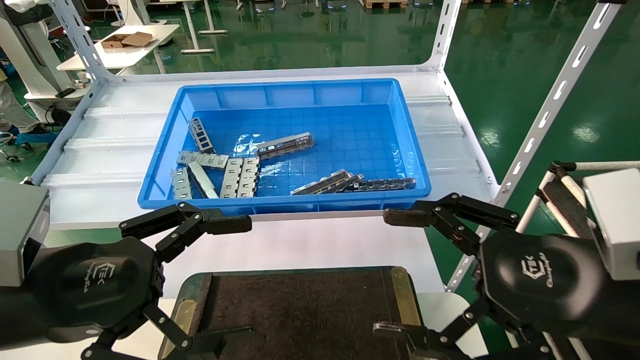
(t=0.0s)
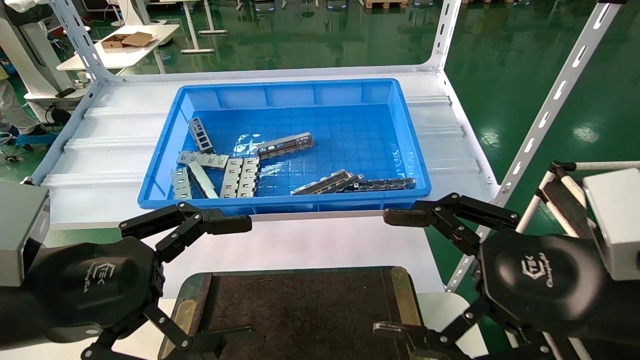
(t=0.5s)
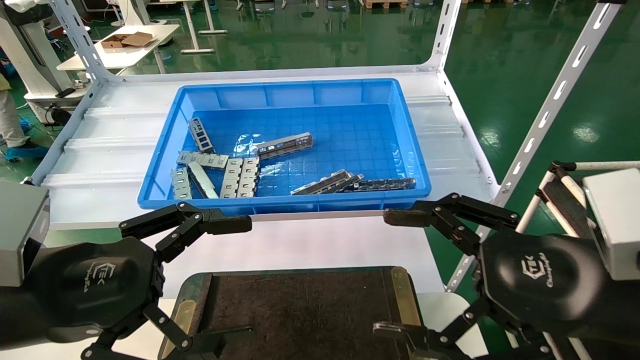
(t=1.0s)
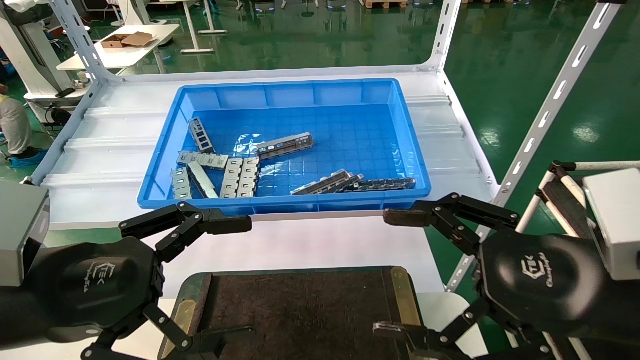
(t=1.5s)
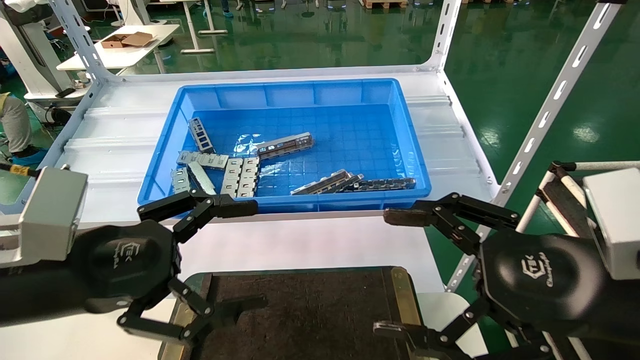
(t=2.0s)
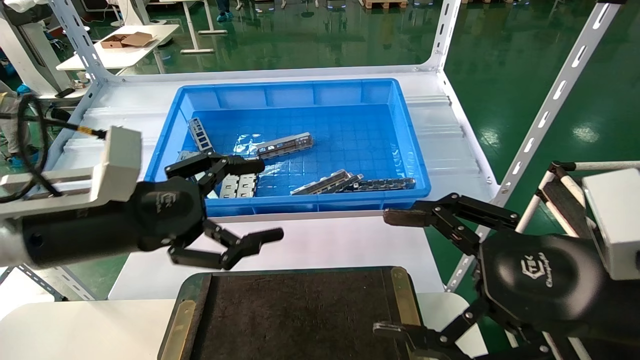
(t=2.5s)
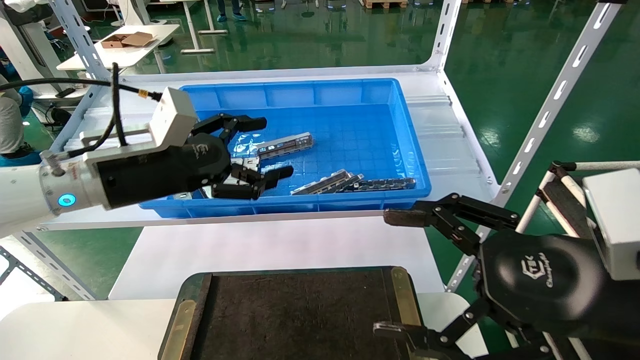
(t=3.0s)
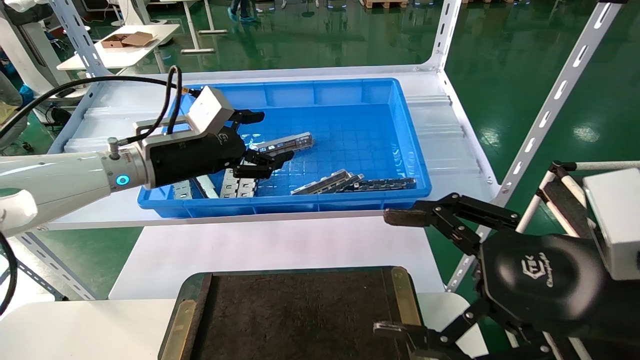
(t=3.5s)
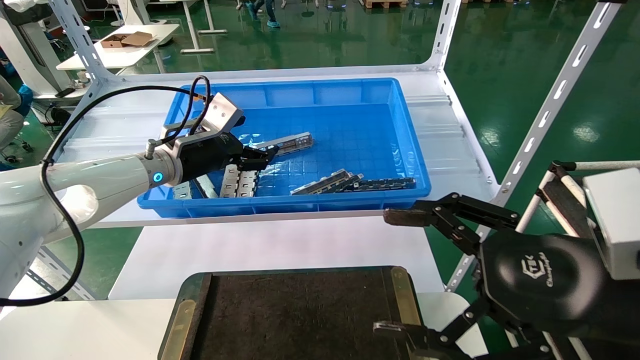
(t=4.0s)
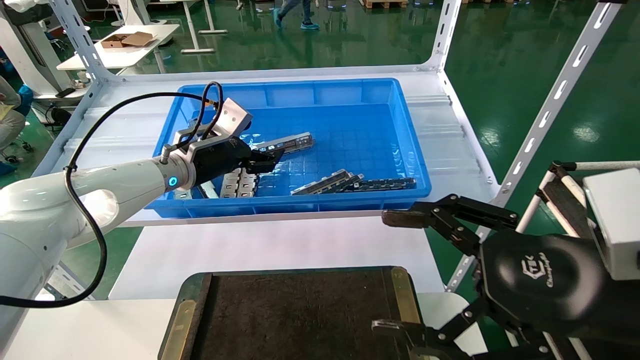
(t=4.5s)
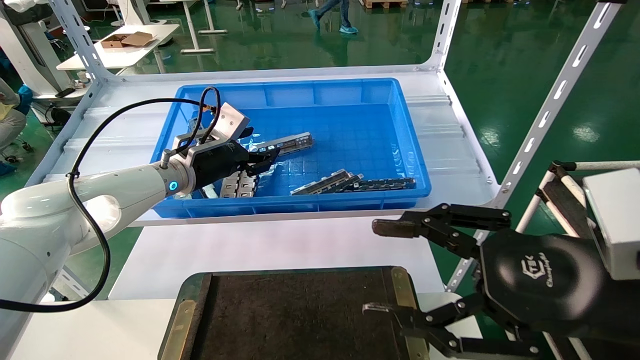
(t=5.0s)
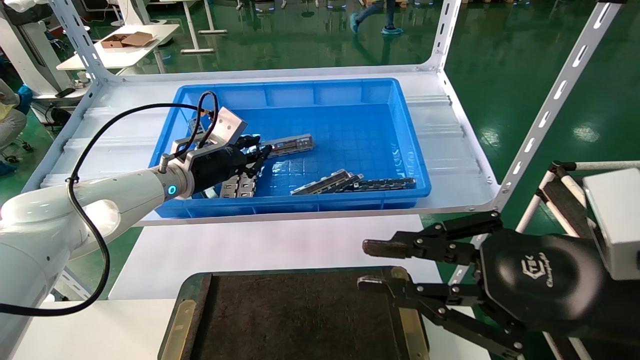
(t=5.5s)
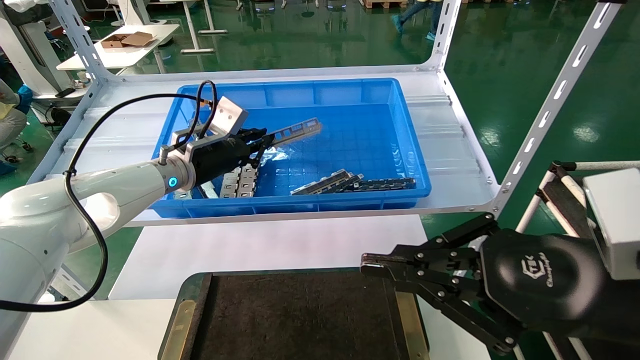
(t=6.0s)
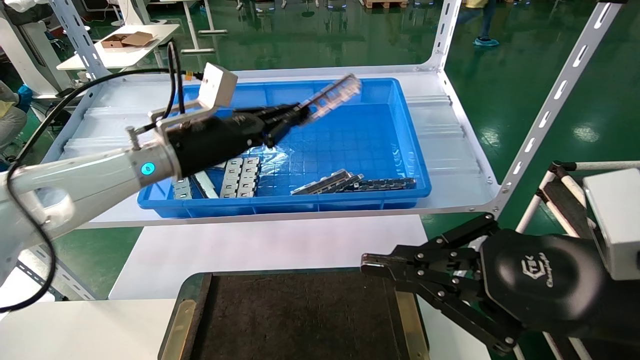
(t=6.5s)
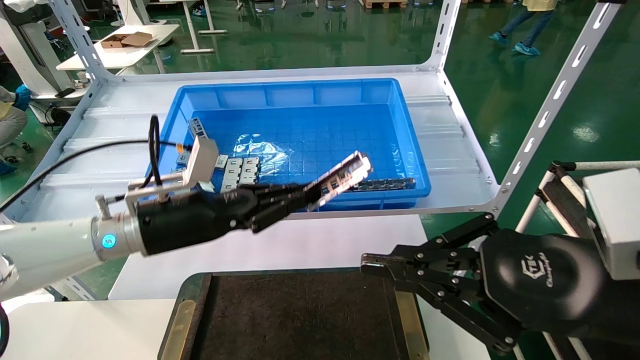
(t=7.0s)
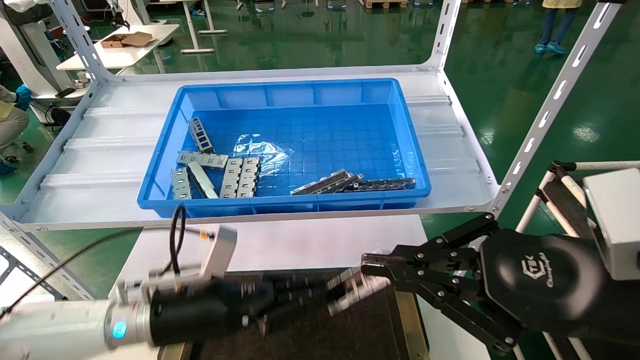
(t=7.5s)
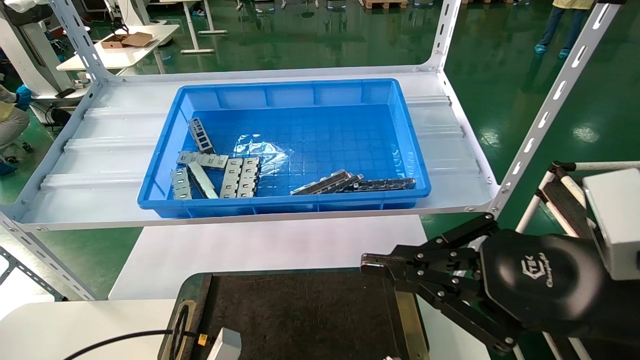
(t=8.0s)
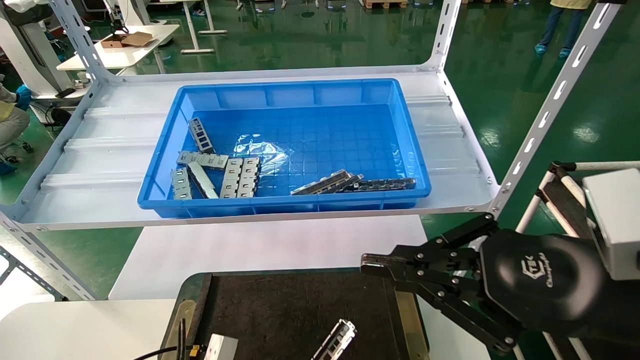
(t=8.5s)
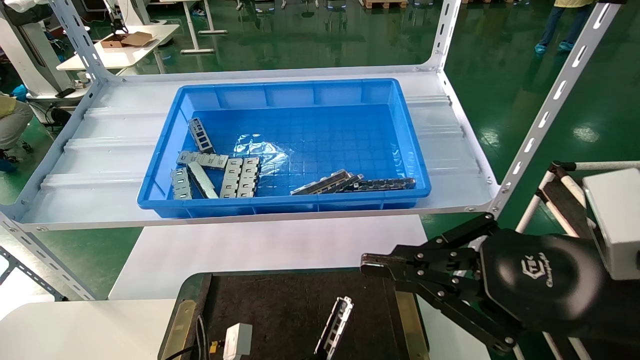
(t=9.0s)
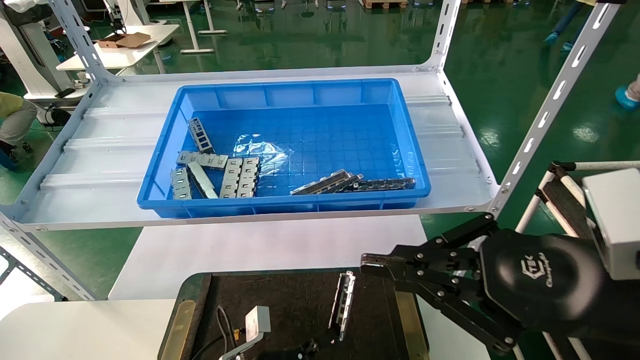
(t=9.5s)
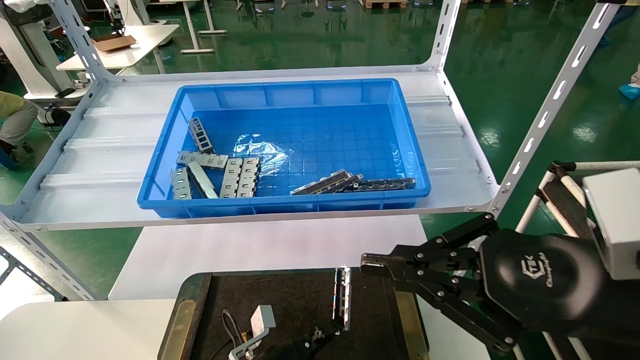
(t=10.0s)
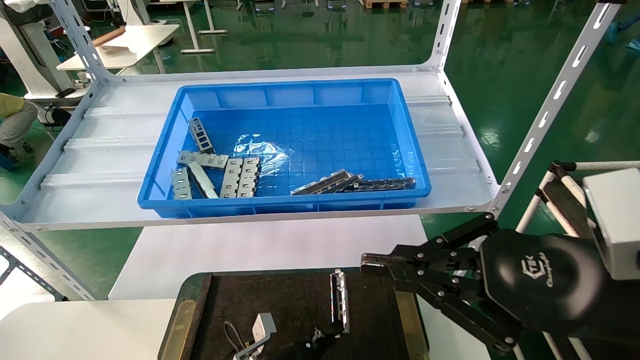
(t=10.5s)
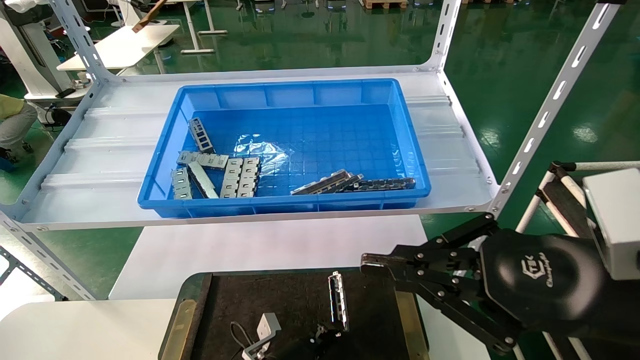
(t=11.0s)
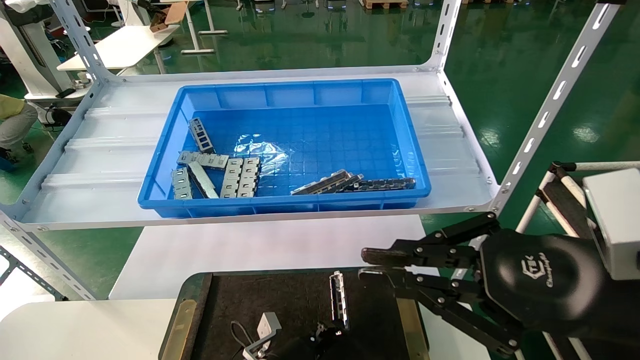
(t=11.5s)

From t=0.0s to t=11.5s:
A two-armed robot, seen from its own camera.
Task of the whole recording: Grasp the part with one hand and place it on the black container.
Step, from t=2.5s to t=7.0s: Pick up the front USB bracket from the feeding area.
From t=0.0s to t=2.0s: The grippers make only small movements.
From t=2.0s to t=4.0s: The left gripper goes some 25 cm forward.
From t=4.0s to t=6.0s: The left gripper closes, while the right gripper closes up.
From t=6.0s to t=7.5s: The left gripper travels backward and downward by roughly 25 cm.
From t=7.5s to t=9.5s: The left gripper travels downward and to the right by approximately 20 cm.
From t=9.5s to t=11.5s: The left gripper ends up some 5 cm from where it was.

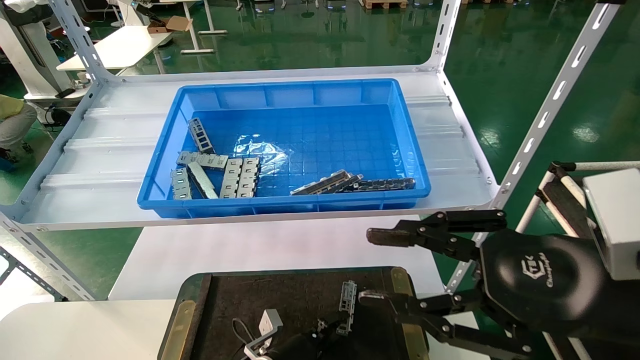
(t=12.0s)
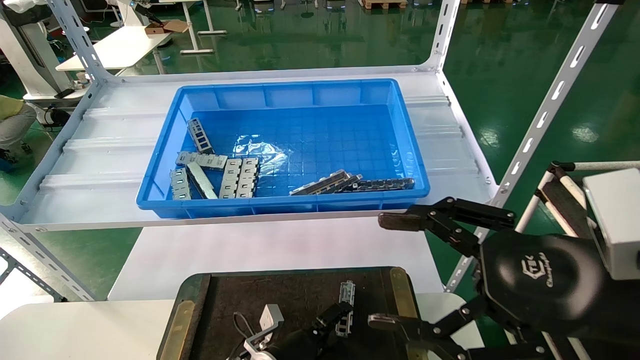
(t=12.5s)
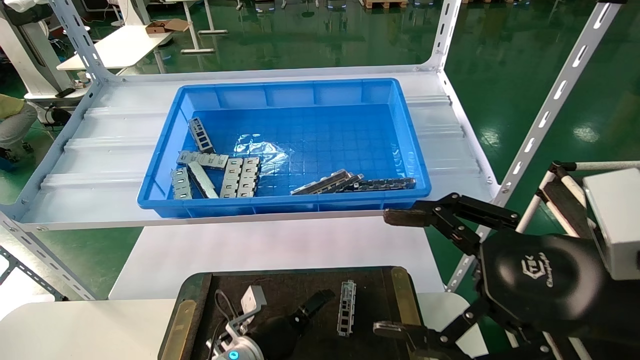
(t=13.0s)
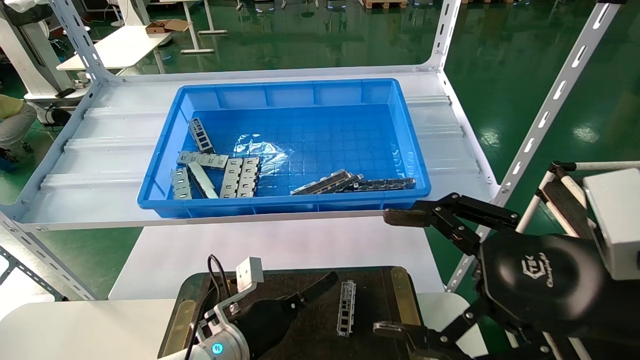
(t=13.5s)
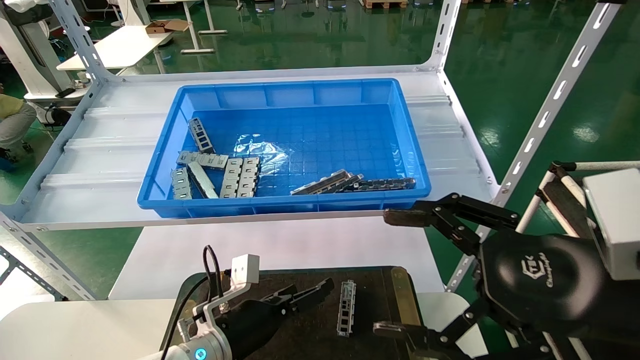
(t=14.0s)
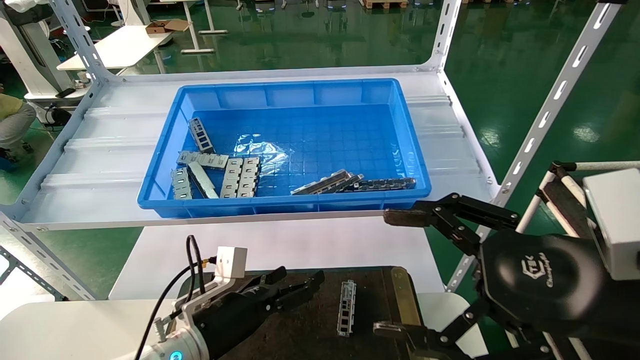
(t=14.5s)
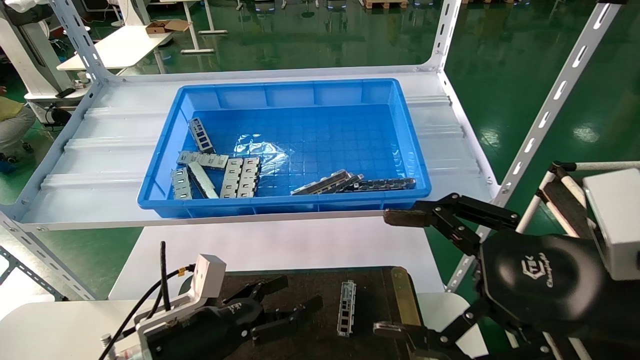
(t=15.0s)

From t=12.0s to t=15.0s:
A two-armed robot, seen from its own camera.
Task of the whole recording: Grasp the part with one hand and place it on the black container.
From t=12.0s to t=13.5s: The right gripper opens, while the left gripper travels upward by some 10 cm, and opens its fingers.
From t=13.5s to t=15.0s: The left gripper shifts approximately 10 cm to the left and backward.

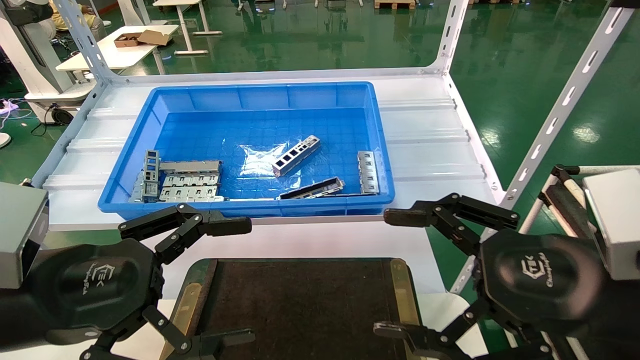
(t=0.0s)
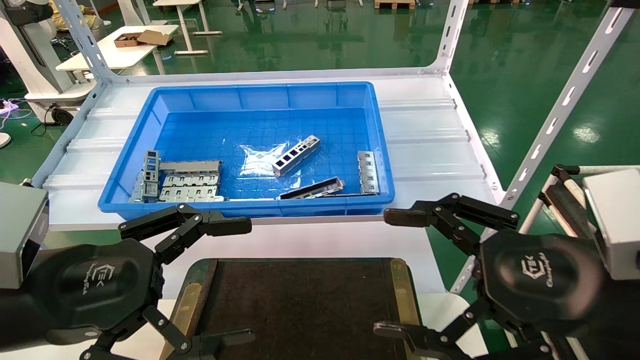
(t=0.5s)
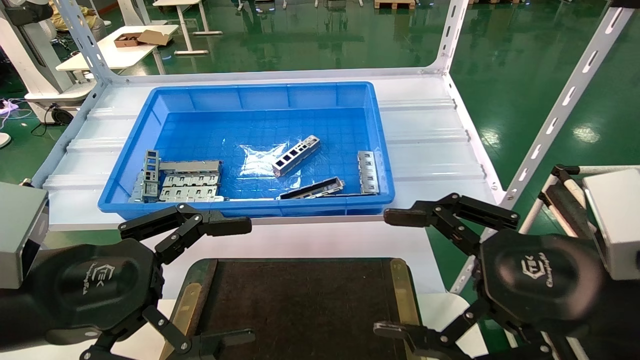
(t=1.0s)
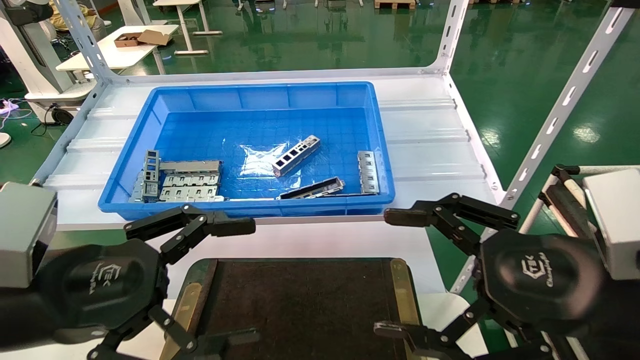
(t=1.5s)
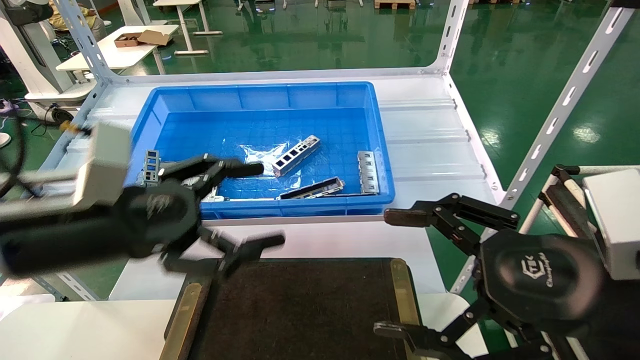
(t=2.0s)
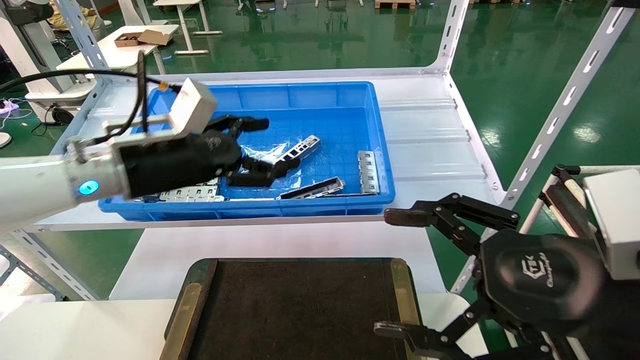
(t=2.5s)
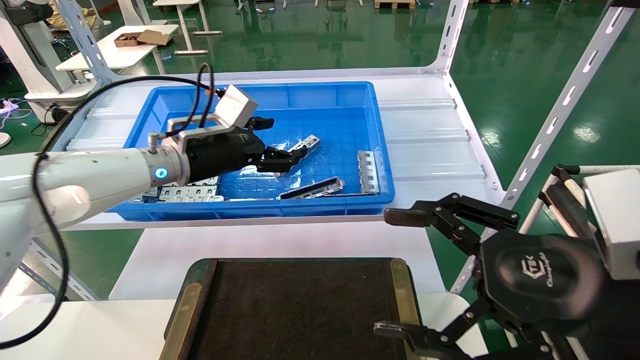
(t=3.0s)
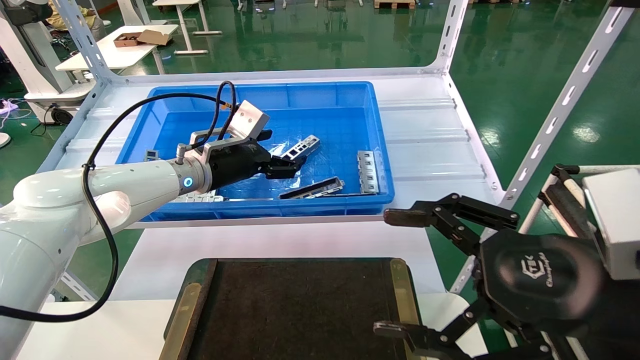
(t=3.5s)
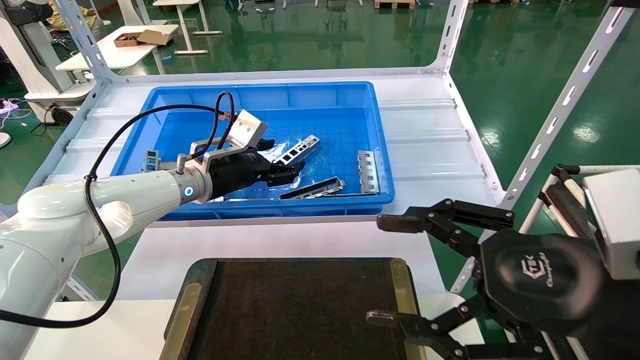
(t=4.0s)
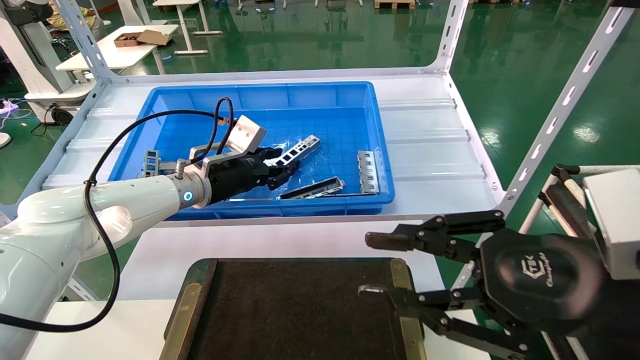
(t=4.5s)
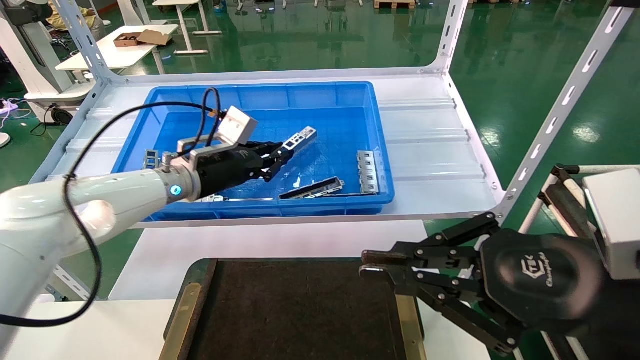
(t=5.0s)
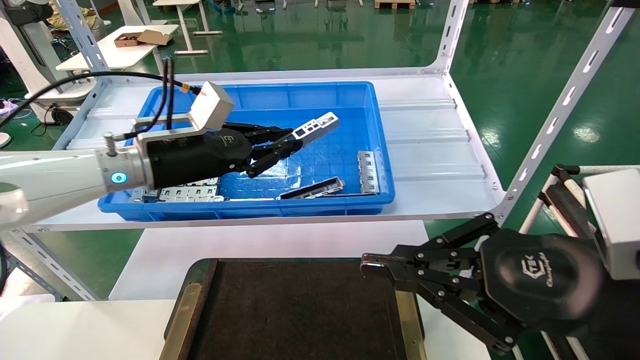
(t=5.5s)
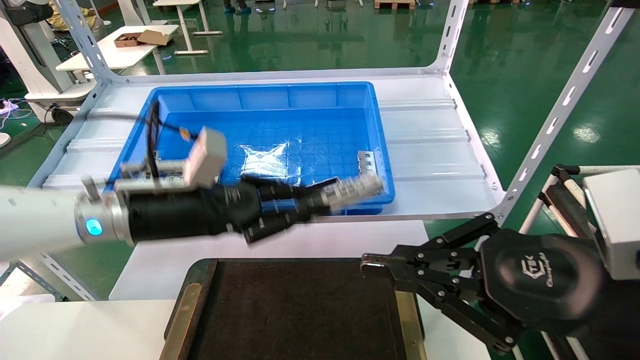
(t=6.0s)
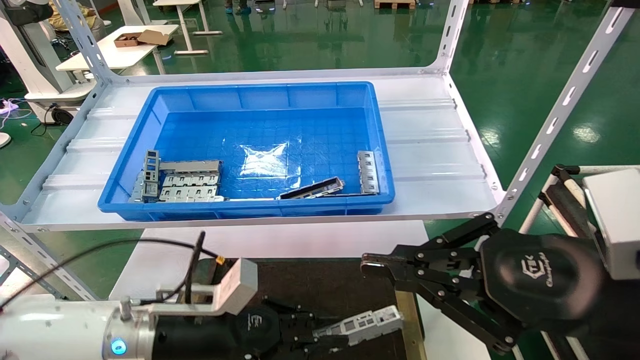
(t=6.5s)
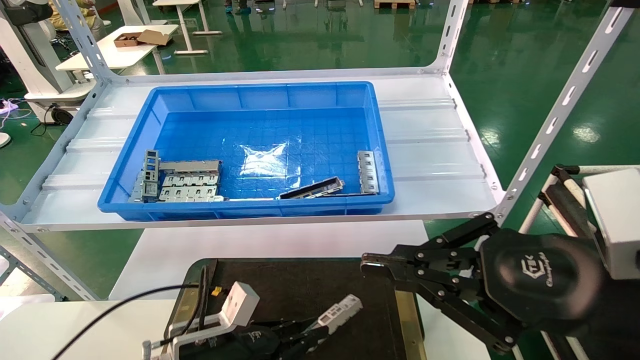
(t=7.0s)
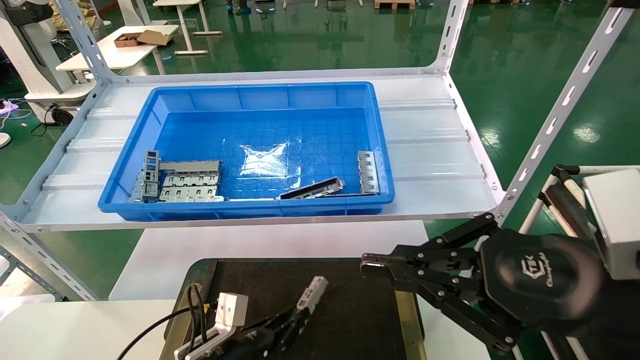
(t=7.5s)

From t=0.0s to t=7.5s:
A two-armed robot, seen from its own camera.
Task of the whole recording: Grasp the part with one hand and place it on the black container.
Step, from t=2.0s to t=4.5s: Pick up the front USB bracket from the feeding area.
From t=0.0s to t=2.0s: The left gripper moves forward, about 5 cm.
From t=2.0s to t=4.0s: The left gripper heads forward, covering some 25 cm.
From t=4.0s to t=5.5s: The right gripper closes. The left gripper goes approximately 5 cm backward, and closes.
From t=5.5s to t=7.5s: The left gripper shifts roughly 30 cm downward.
